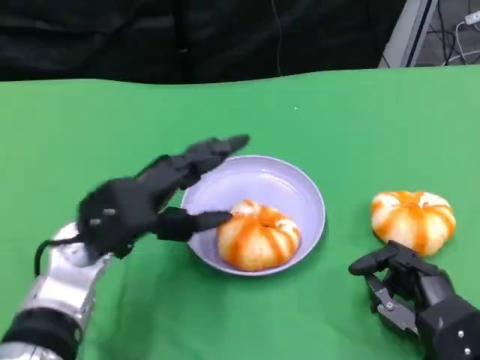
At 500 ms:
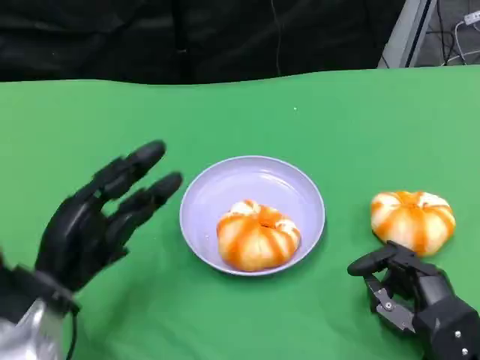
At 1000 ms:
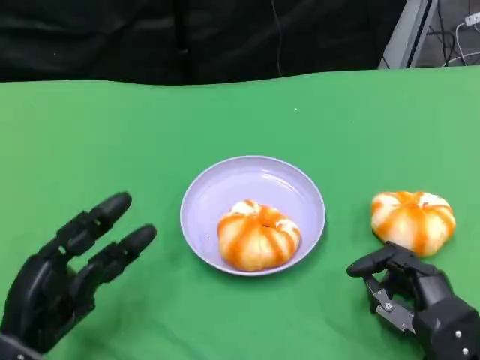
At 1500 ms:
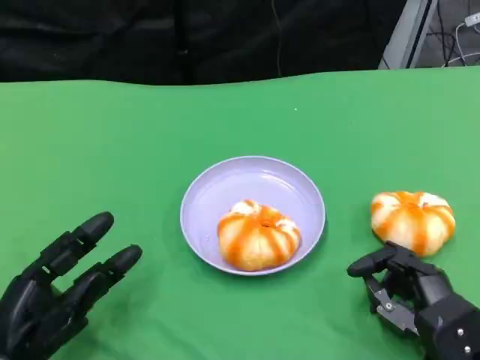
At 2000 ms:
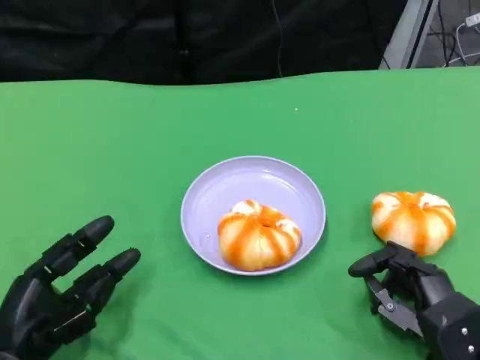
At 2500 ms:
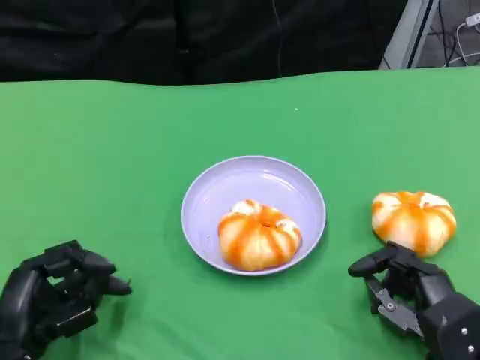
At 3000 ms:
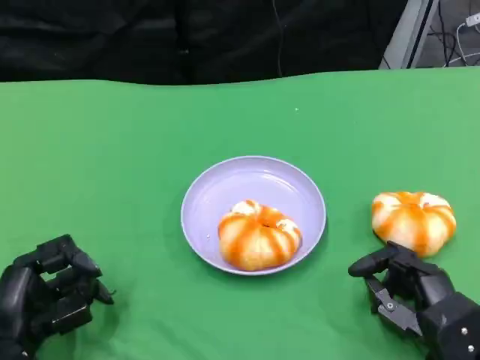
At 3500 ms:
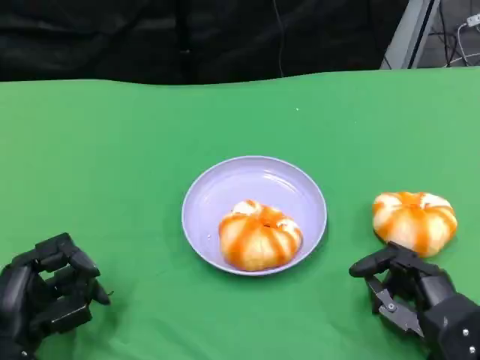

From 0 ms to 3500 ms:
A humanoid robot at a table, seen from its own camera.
Task of the whole recording: Grasp the bread from the table and place it into the plate.
From 0 ms to 2000 ms: The left hand moves backward, downward and to the left, some 15 cm.
From 2000 ms to 3500 ms: The hands stay close to where they were, moving slightly.

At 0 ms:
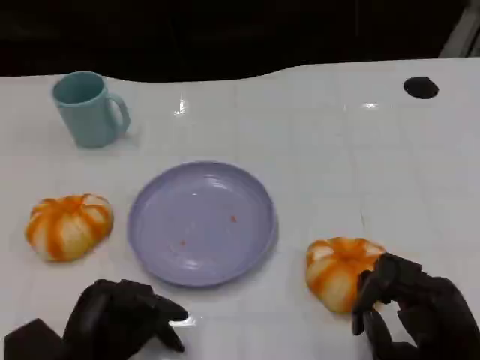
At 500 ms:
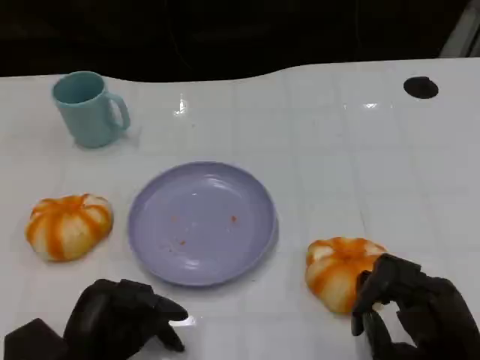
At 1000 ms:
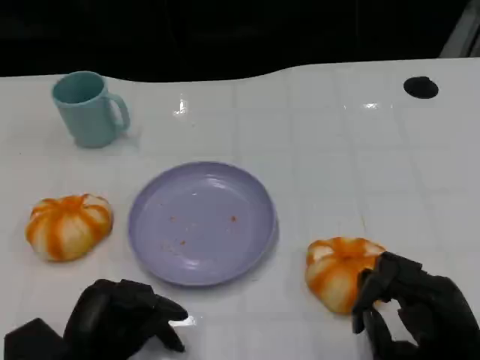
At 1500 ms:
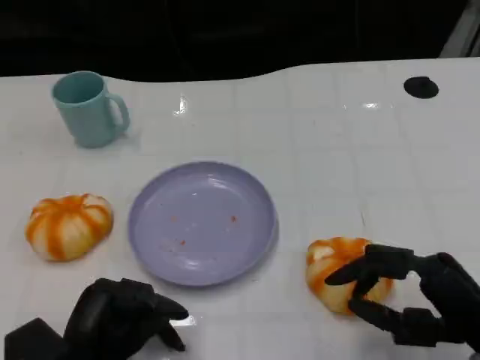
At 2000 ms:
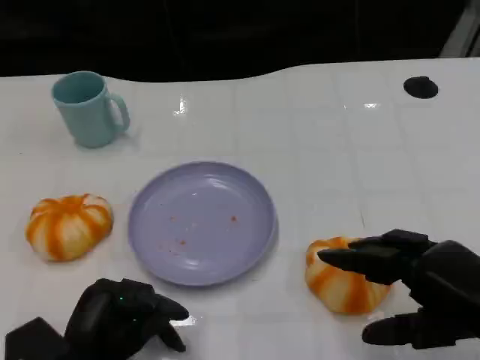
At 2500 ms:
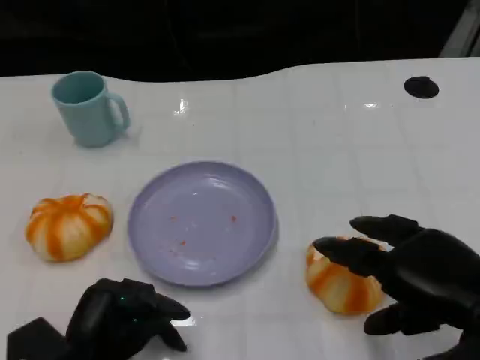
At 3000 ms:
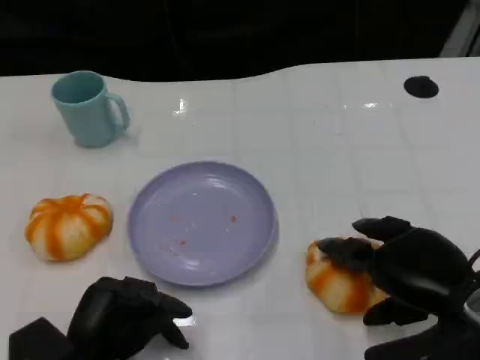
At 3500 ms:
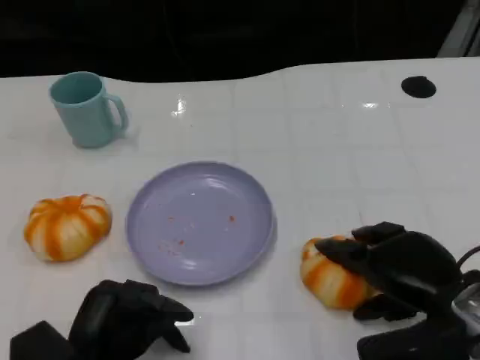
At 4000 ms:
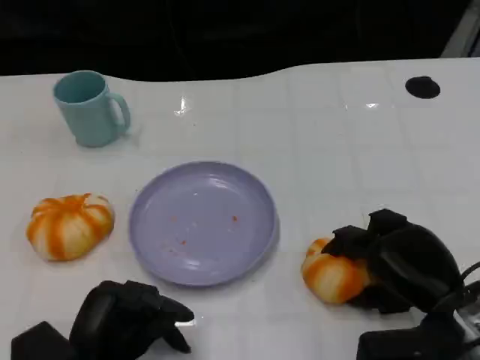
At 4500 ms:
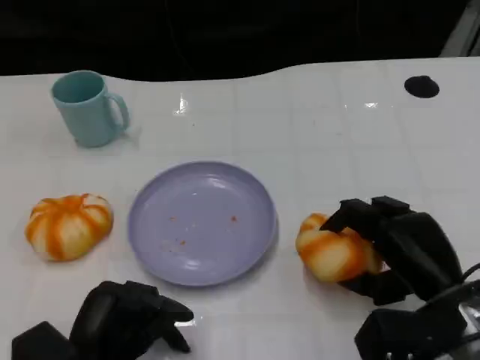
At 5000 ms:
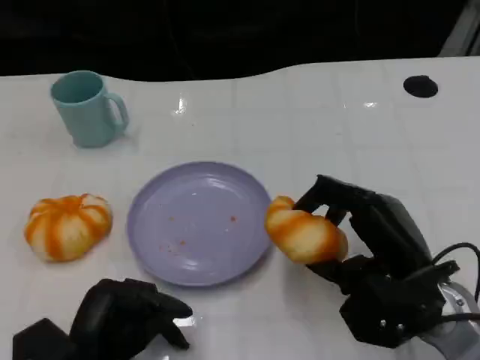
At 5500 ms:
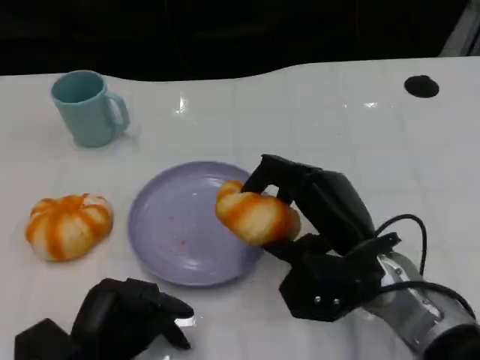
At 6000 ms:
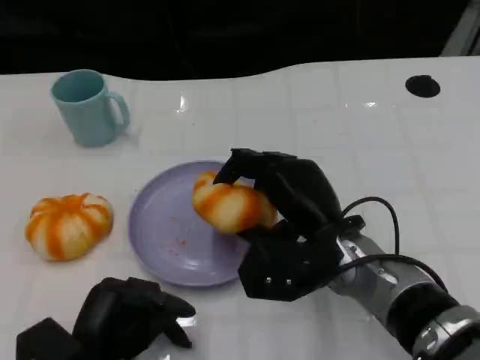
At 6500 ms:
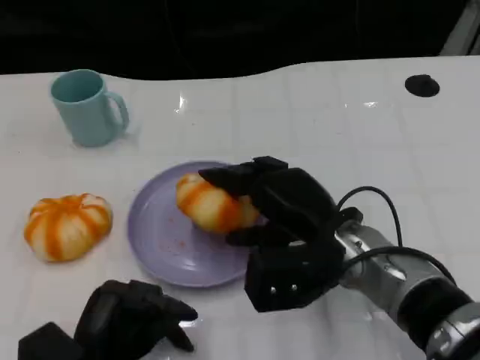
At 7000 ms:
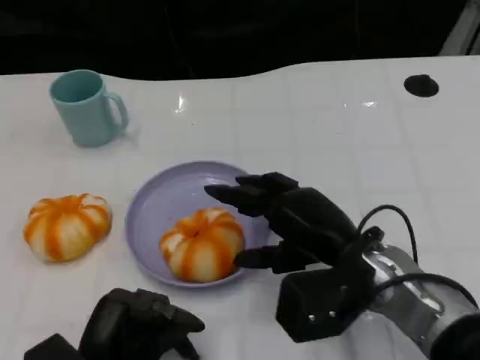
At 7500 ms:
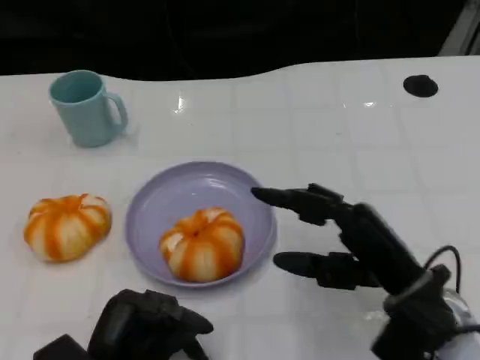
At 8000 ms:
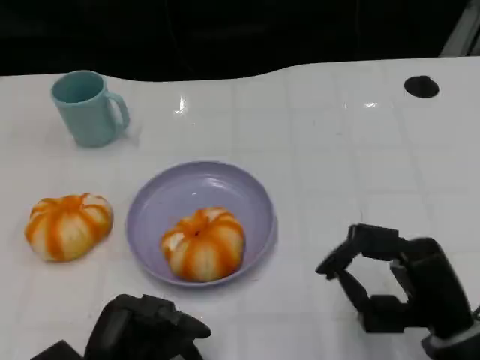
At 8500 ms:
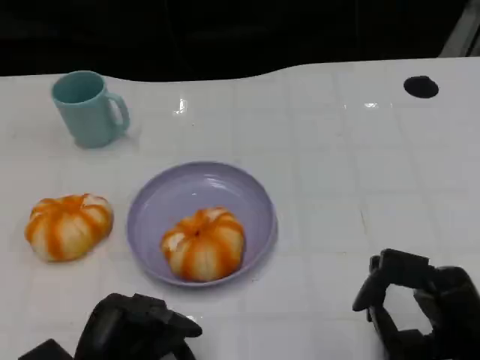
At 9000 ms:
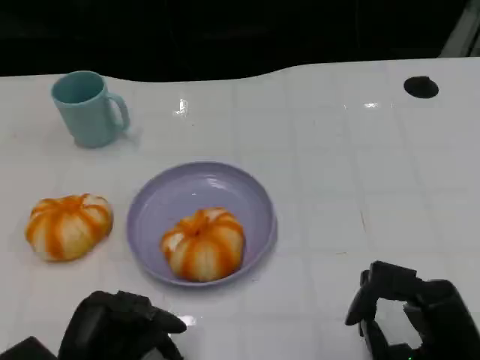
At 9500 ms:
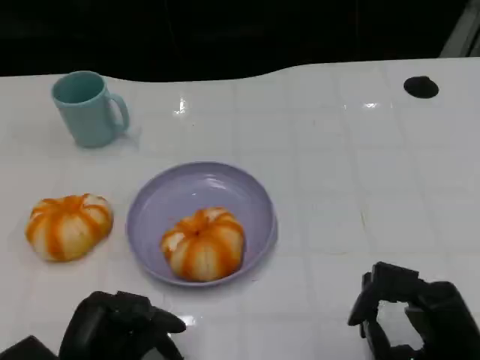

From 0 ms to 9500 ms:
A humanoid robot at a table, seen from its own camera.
Task of the whole recording: Grasp the bread from the table and place it into the plate.
From 0 ms to 2000 ms: The right hand moves upward, roughly 10 cm.
From 2000 ms to 4000 ms: The right hand is displaced downward and forward by approximately 10 cm.
From 4000 ms to 5500 ms: The right hand goes about 10 cm to the left.
From 5500 ms to 7500 ms: The right hand is displaced to the right by approximately 5 cm.
From 7500 ms to 9500 ms: The right hand is displaced backward by roughly 5 cm.

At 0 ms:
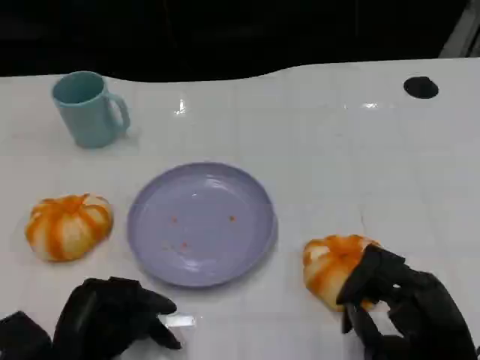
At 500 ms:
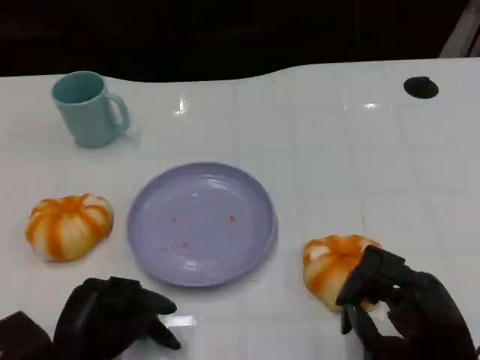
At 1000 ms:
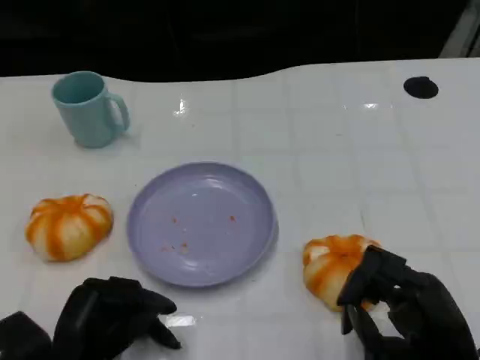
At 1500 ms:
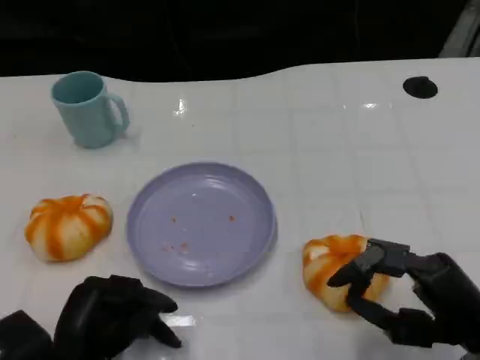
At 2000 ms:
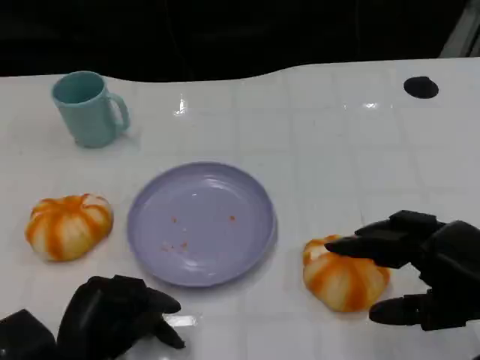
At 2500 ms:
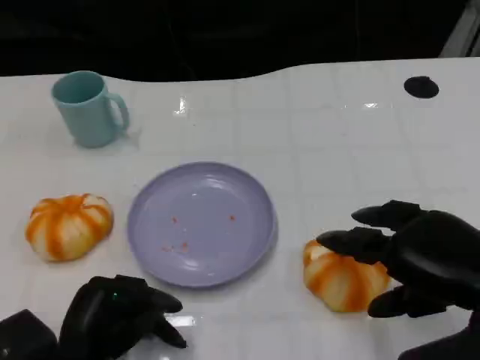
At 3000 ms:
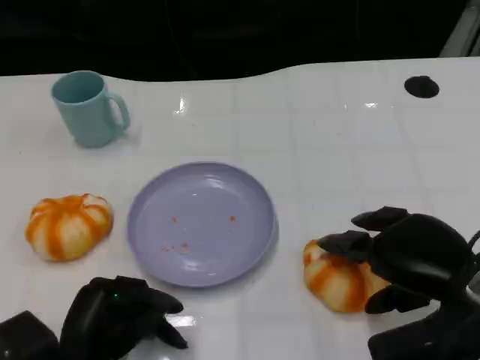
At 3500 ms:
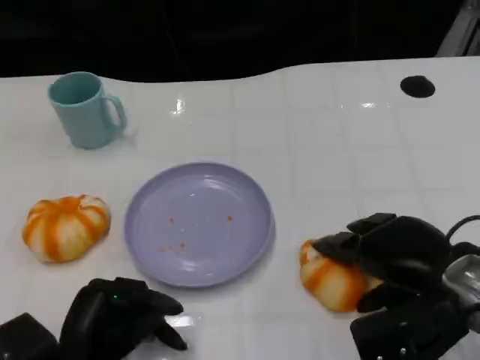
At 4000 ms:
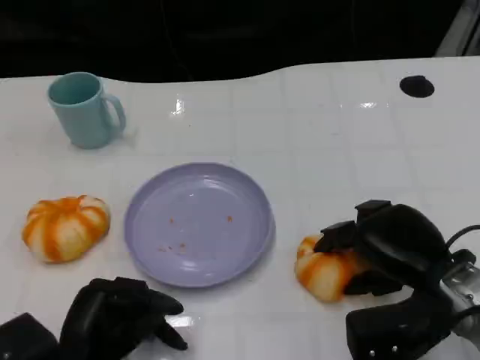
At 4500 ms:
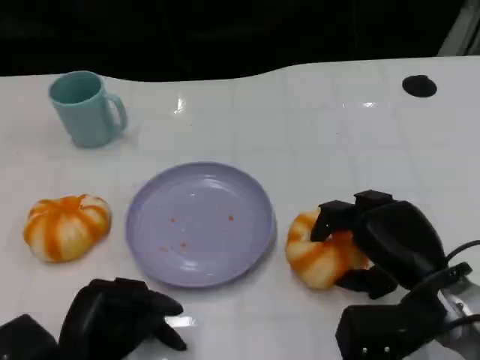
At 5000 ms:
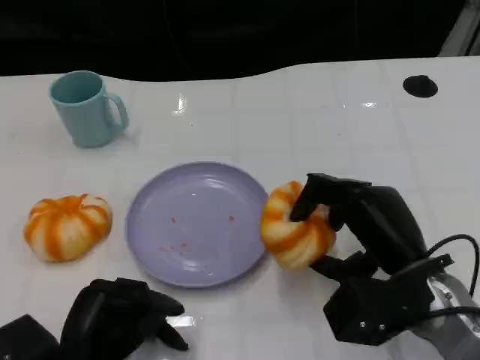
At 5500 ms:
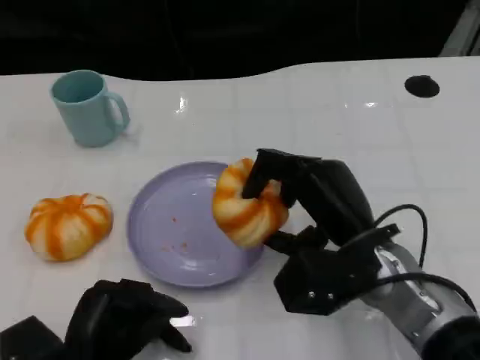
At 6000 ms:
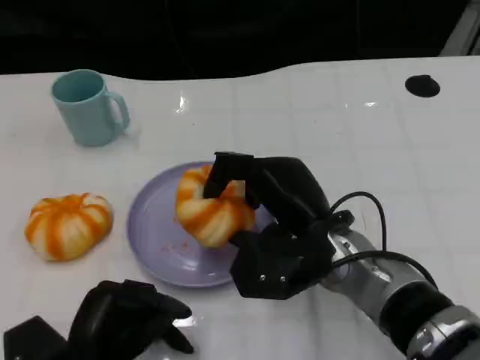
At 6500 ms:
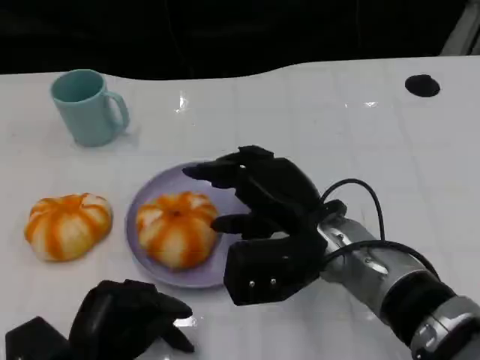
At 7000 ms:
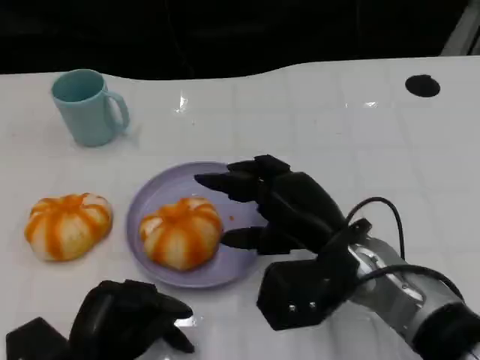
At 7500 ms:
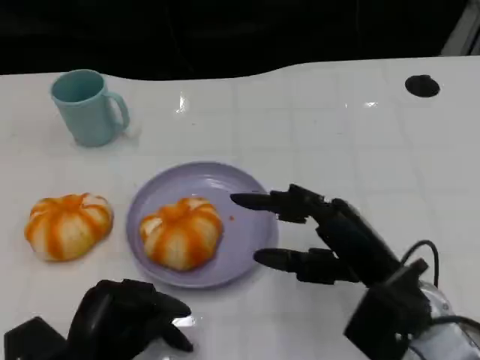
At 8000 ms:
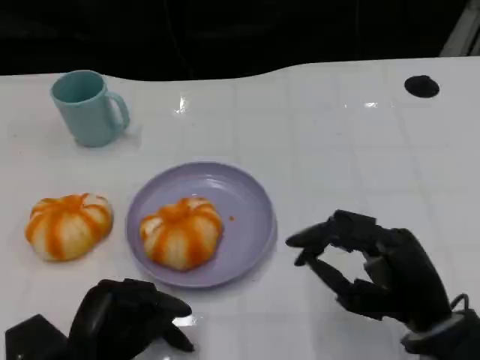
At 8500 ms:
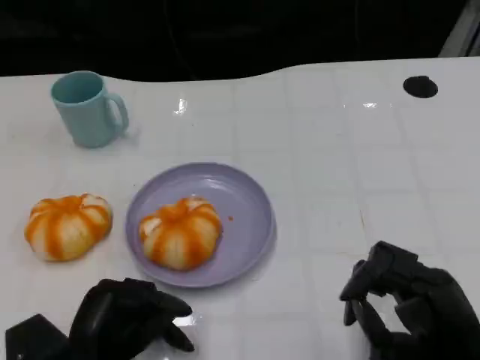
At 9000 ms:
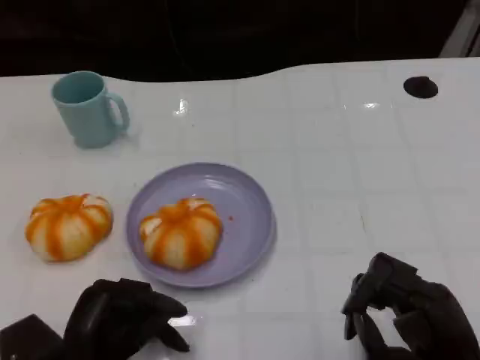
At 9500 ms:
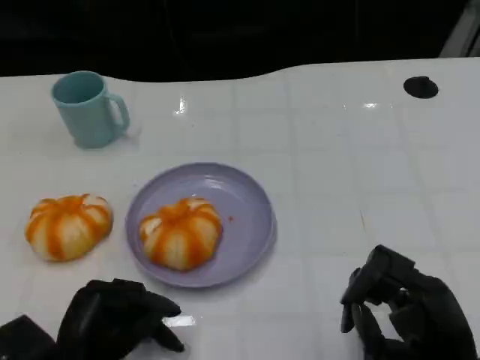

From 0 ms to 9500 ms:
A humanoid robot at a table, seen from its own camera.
Task of the whole recording: Grasp the bread from the table and place it into the plate.
From 0 ms to 2000 ms: The right hand is displaced upward by some 10 cm.
From 2000 ms to 4000 ms: The right hand shifts approximately 10 cm downward, forward and to the left.
From 4000 ms to 5500 ms: The right hand shifts roughly 10 cm to the left.
From 5500 ms to 7500 ms: The right hand shifts by approximately 5 cm.
From 7500 ms to 9500 ms: The right hand shifts about 5 cm backward.

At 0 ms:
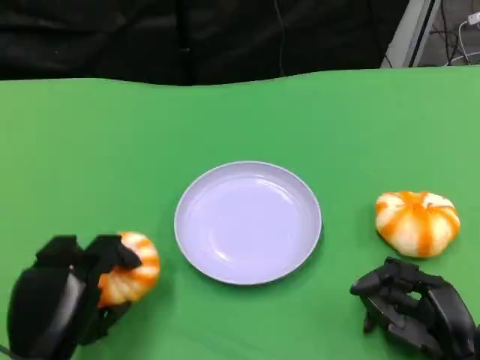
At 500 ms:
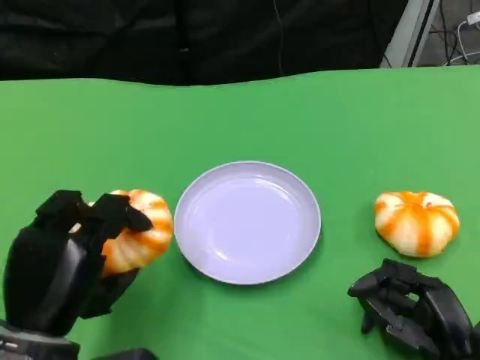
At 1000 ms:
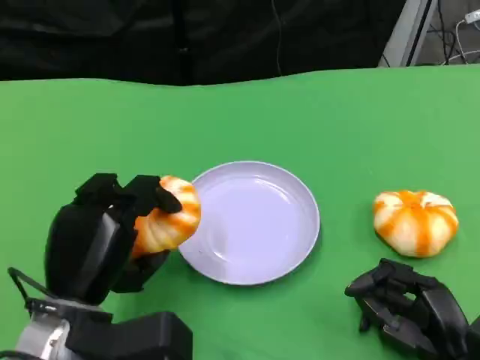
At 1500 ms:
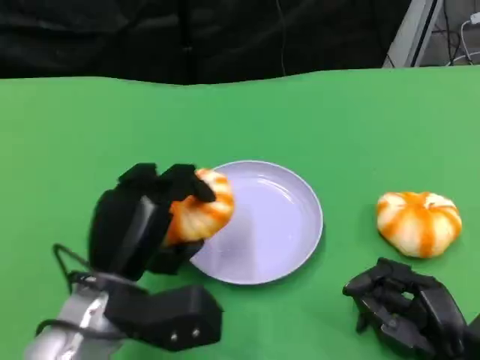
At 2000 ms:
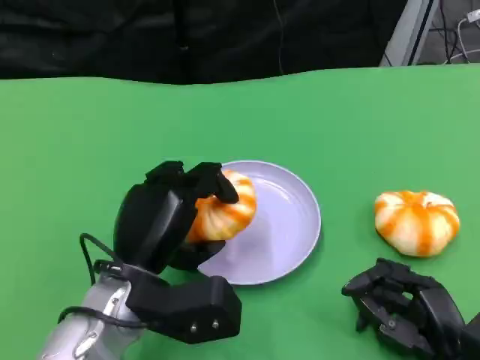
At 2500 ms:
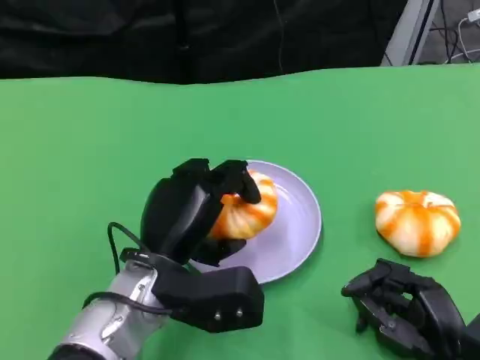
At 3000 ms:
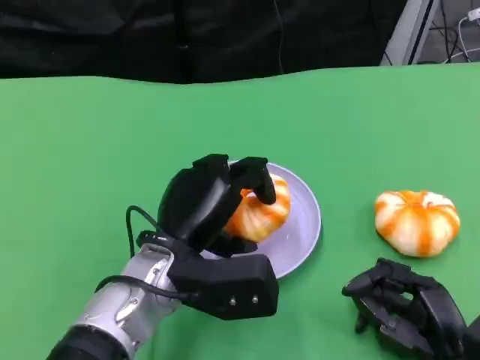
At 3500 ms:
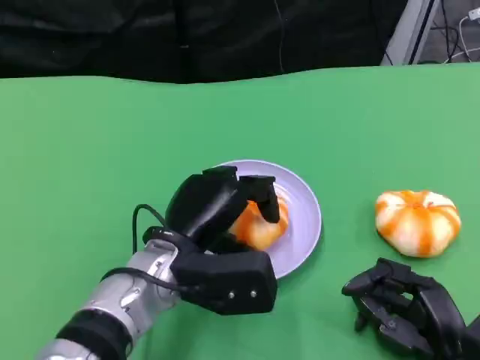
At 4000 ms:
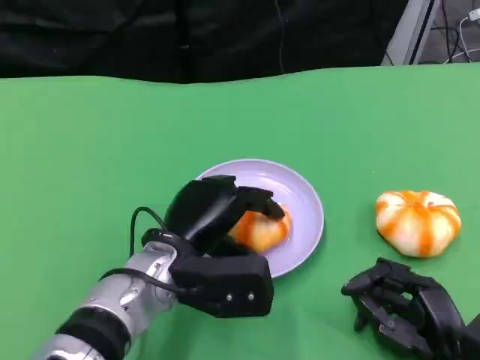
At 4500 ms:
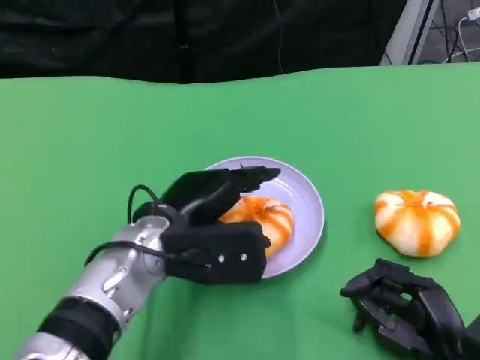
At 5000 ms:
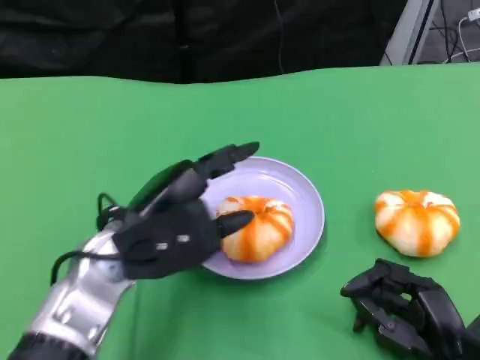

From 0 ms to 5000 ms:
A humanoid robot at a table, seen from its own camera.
Task of the whole recording: Grasp the bread from the table and place it into the plate.
From 0 ms to 2500 ms: The left hand travels to the right and forward by about 15 cm.
From 2500 ms to 5000 ms: The left hand moves about 5 cm.
